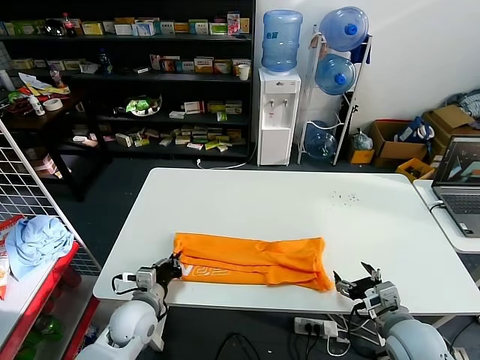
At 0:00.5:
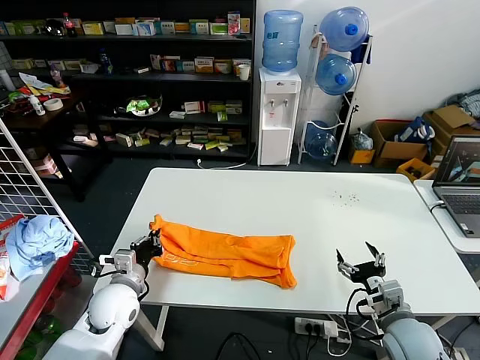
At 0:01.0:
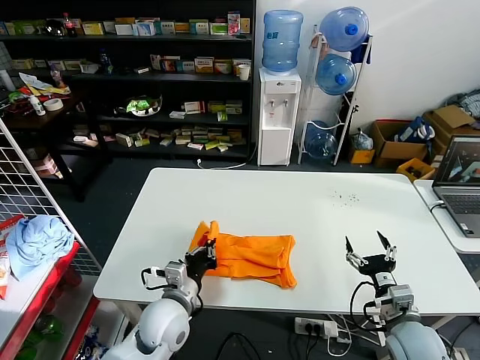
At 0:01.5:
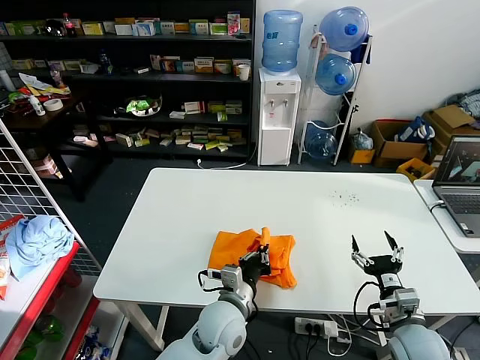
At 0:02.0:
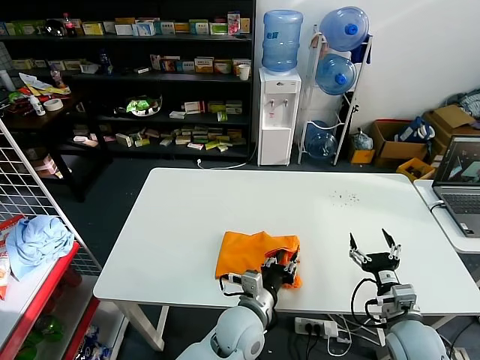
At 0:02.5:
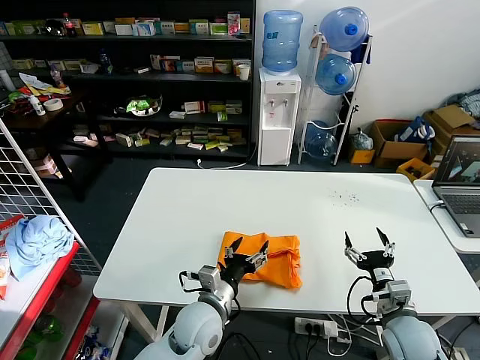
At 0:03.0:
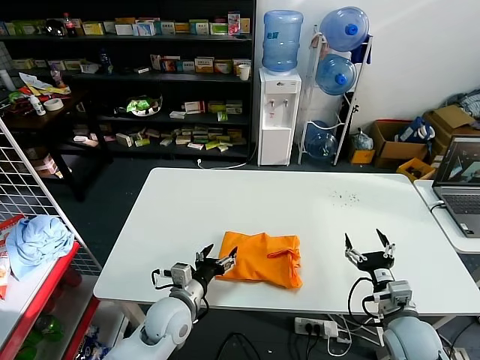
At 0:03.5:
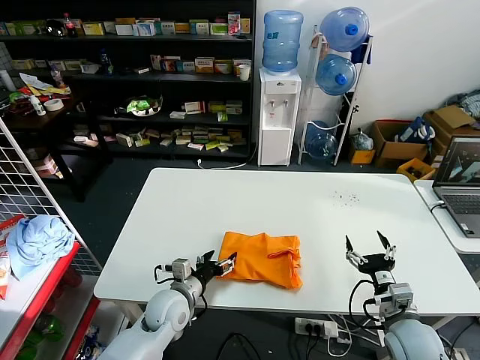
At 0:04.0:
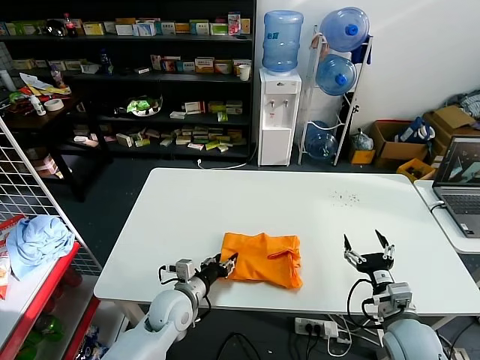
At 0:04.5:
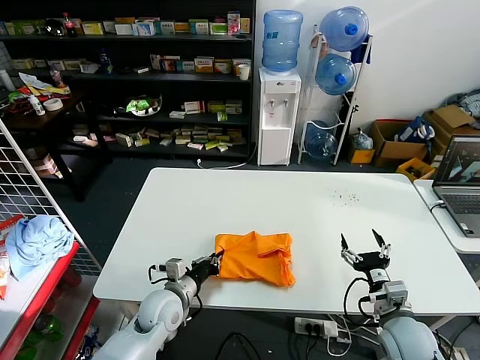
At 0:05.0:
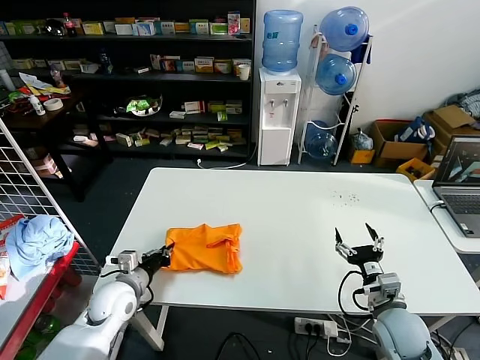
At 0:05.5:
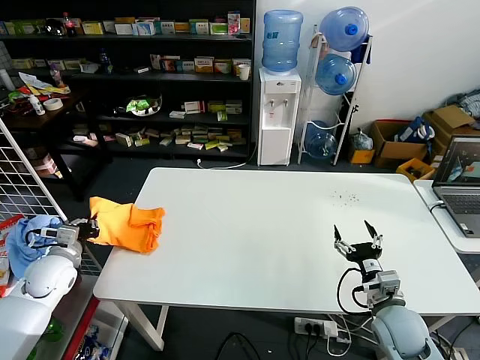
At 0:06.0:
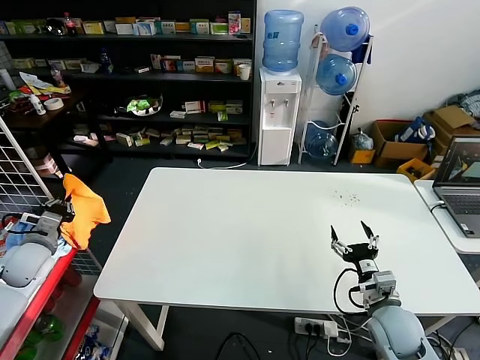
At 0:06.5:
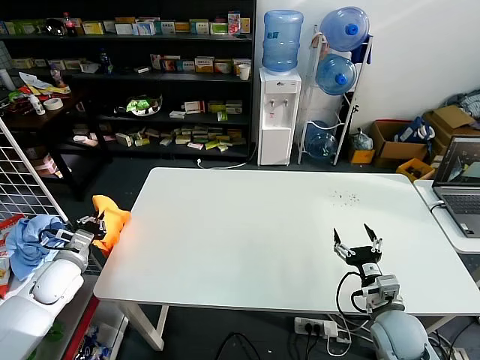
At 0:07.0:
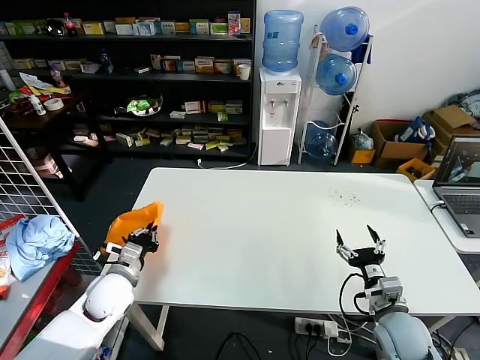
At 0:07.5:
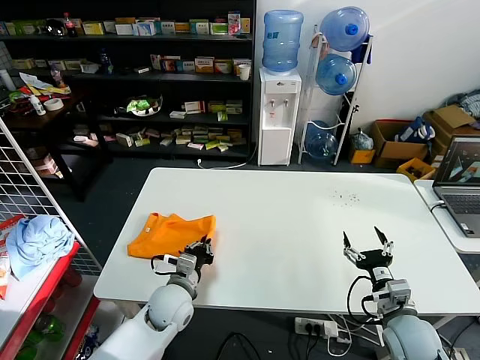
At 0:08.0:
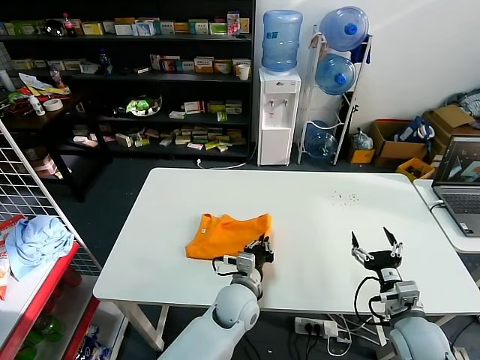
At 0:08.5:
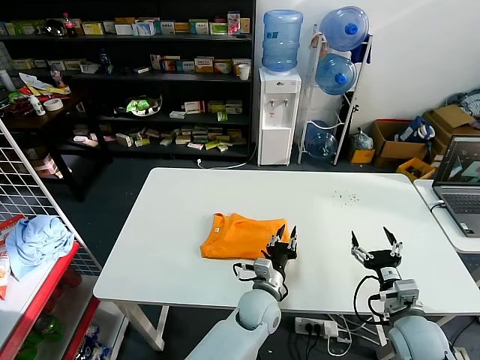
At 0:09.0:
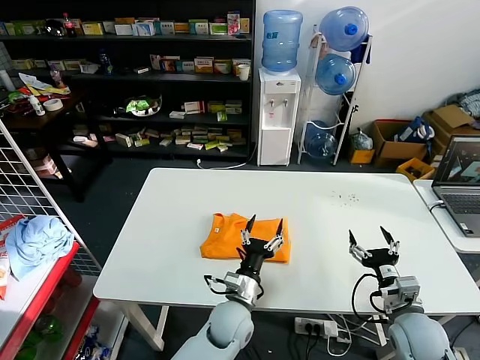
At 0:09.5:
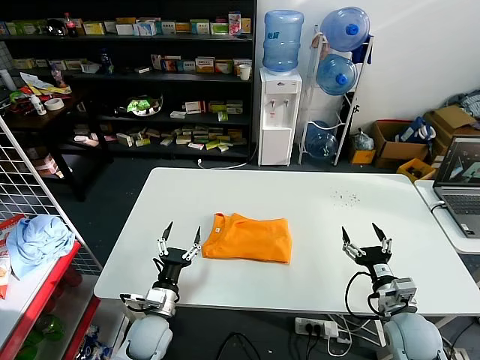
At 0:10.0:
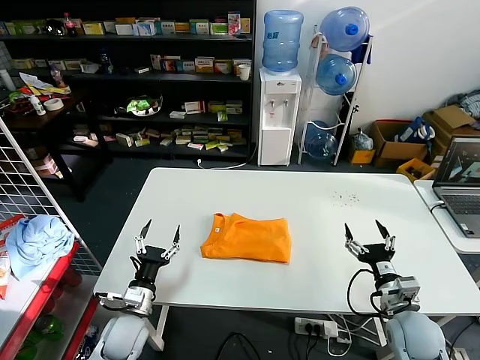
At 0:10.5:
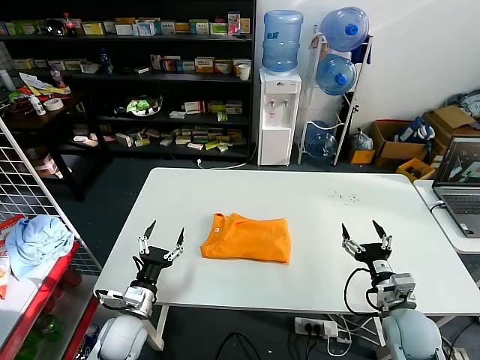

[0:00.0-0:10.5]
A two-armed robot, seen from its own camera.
Task of the whole recording: fold and organize the clothes.
Step, 0:00.0 to 0:02.0: use the left gripper to drag the left edge of the fabric to the left and folds it over the right edge.
Step, 0:02.5 to 0:08.5: Flip the folded clothes over with left gripper.
0:00.0 to 0:02.0: The left gripper heads to the right, covering roughly 25 cm, and opens its fingers.
0:02.0 to 0:04.0: The left gripper goes approximately 15 cm to the left, and opens, then closes once more.
0:04.0 to 0:06.5: The left gripper travels to the left by some 25 cm, and closes up.
0:06.5 to 0:08.5: The left gripper heads to the right, covering about 50 cm.
0:08.5 to 0:10.5: The left gripper moves to the left, about 30 cm, and opens its fingers.
